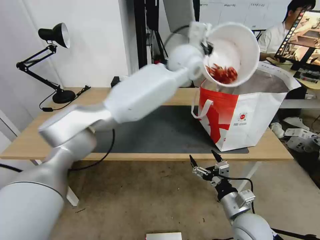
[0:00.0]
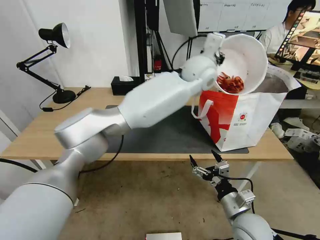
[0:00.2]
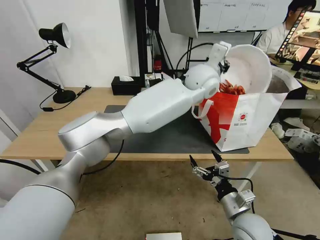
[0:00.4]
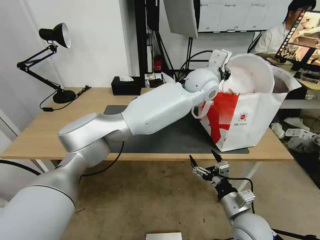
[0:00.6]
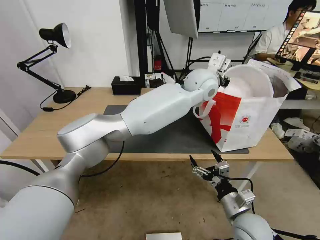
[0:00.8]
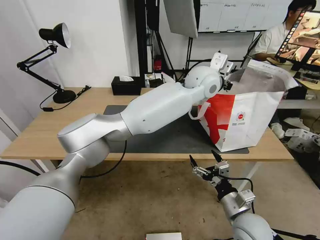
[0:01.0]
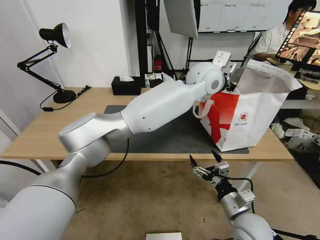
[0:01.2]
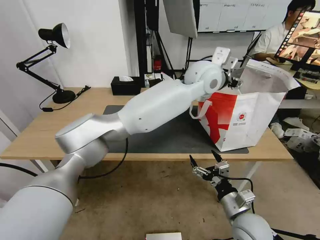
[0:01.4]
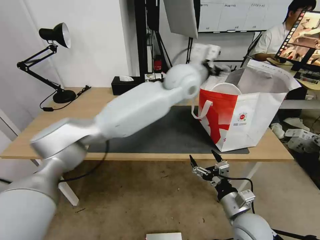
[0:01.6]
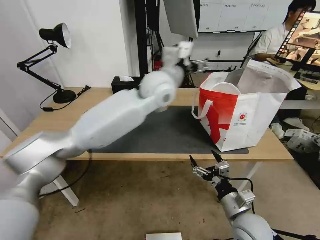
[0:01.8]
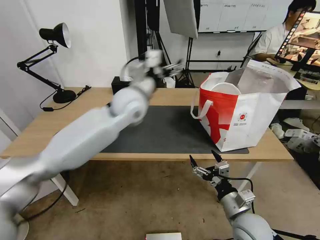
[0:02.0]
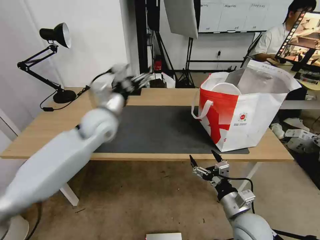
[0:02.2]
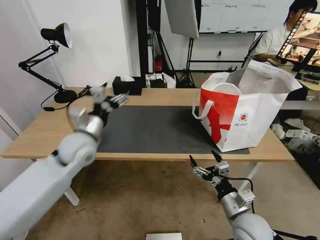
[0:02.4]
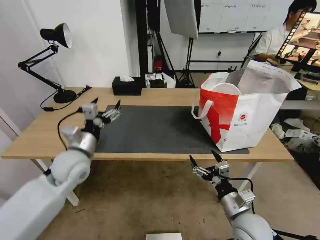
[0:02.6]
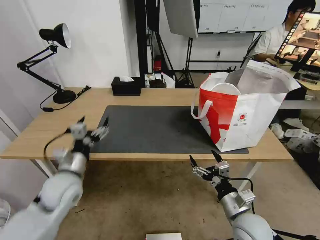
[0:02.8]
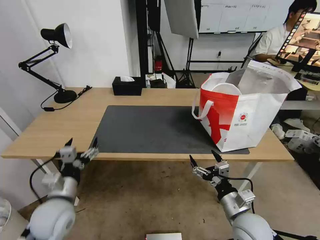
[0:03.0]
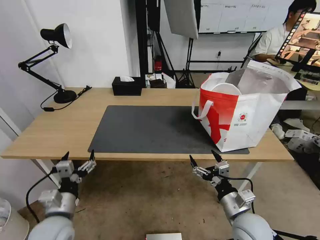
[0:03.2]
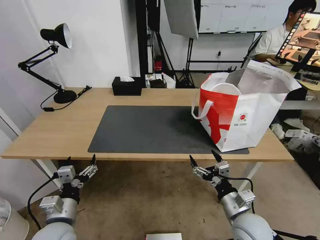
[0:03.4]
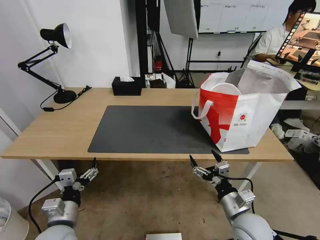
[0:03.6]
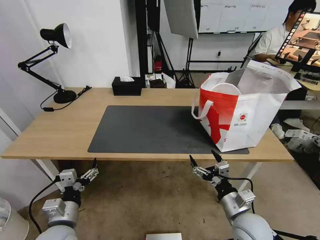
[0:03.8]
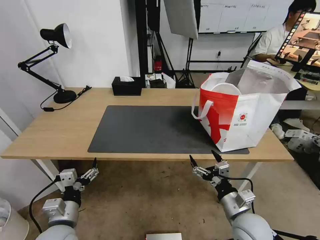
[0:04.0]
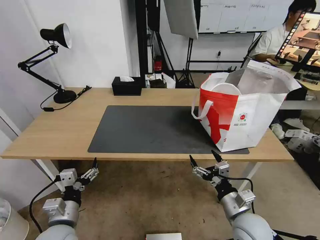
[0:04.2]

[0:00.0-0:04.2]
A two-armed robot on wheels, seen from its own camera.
Task of the whole recording: Pick up the trash from the table and place it into the takeout bag.
0:00.0 to 0:01.4: The left gripper ends up approximately 5 cm from where it was, and opens up.
0:01.4 to 0:02.8: The left gripper moves to the left, downward and backward, roughly 50 cm.
0:02.8 to 0:04.2: The left gripper goes some 15 cm backward and downward.
